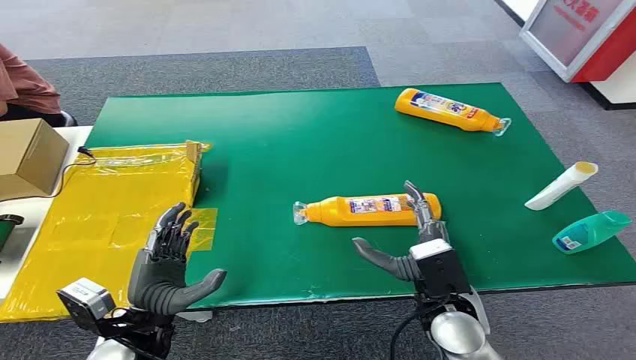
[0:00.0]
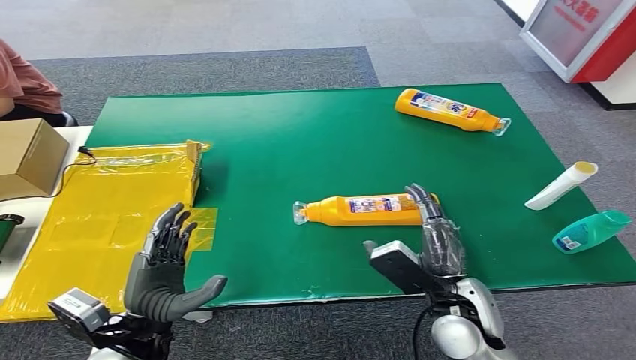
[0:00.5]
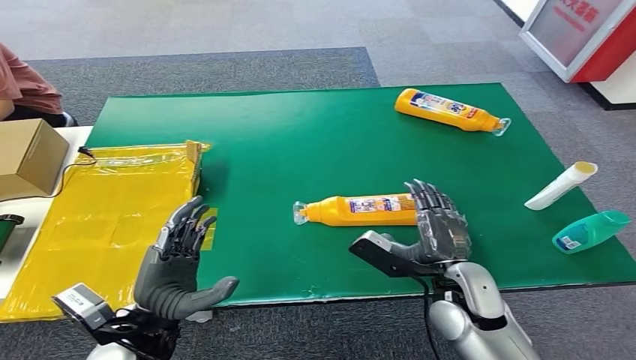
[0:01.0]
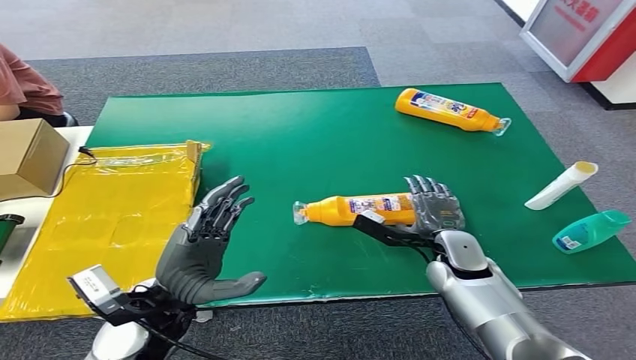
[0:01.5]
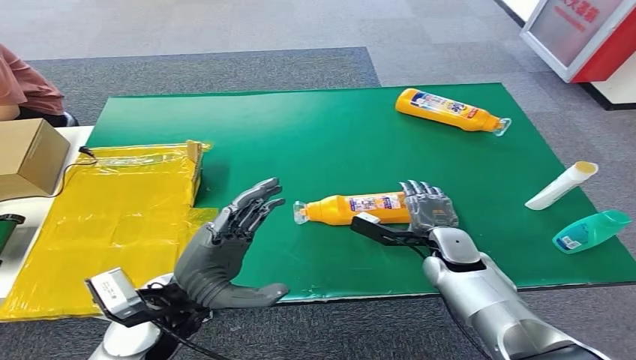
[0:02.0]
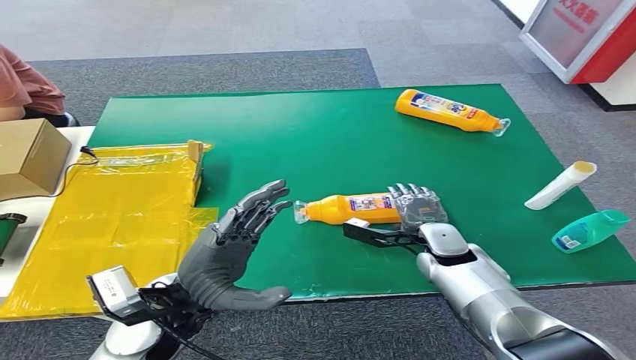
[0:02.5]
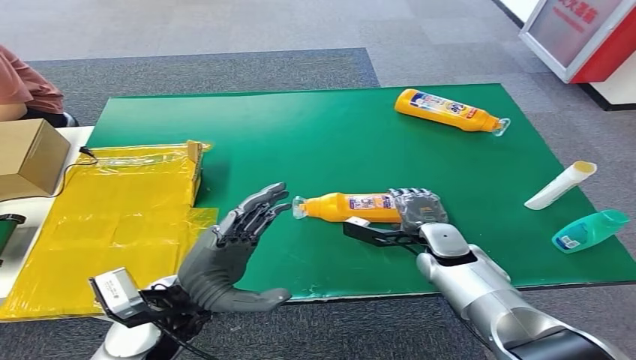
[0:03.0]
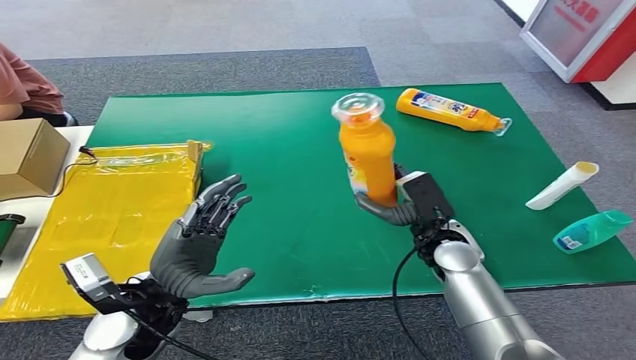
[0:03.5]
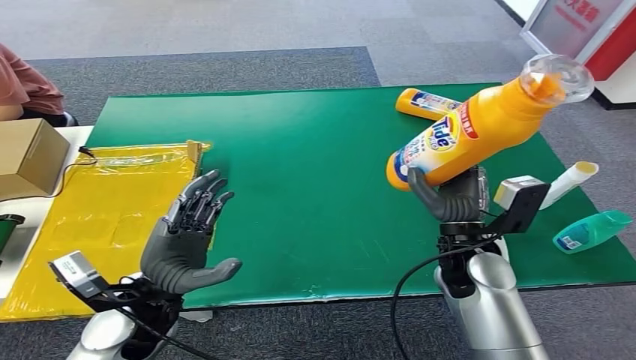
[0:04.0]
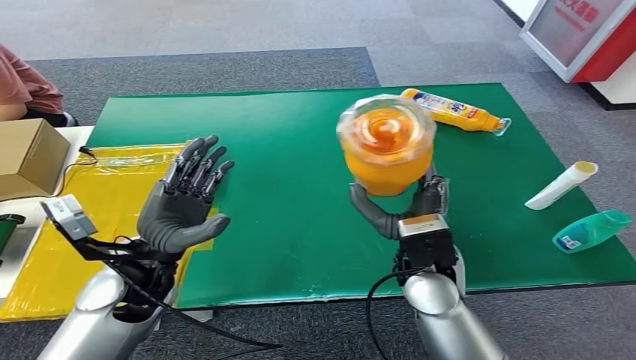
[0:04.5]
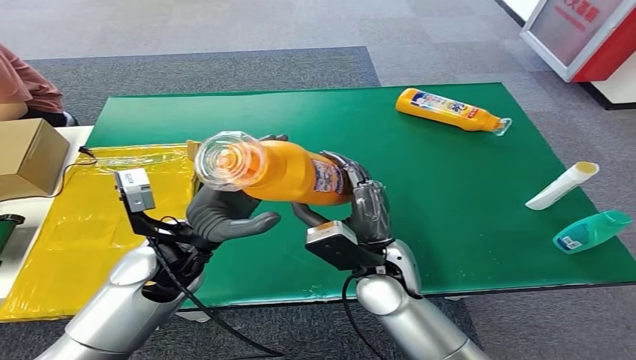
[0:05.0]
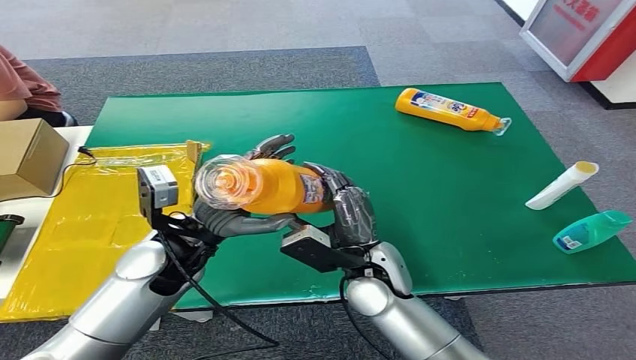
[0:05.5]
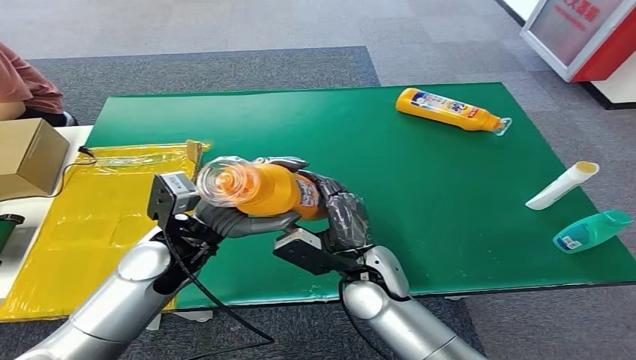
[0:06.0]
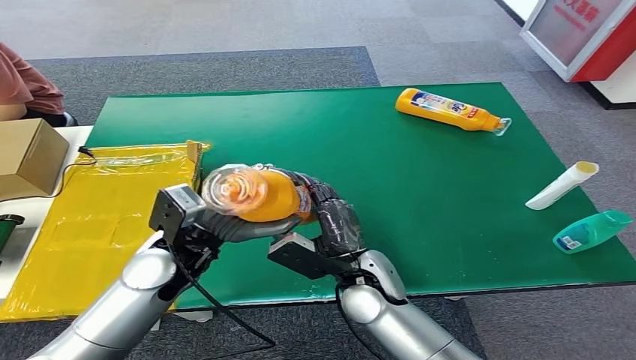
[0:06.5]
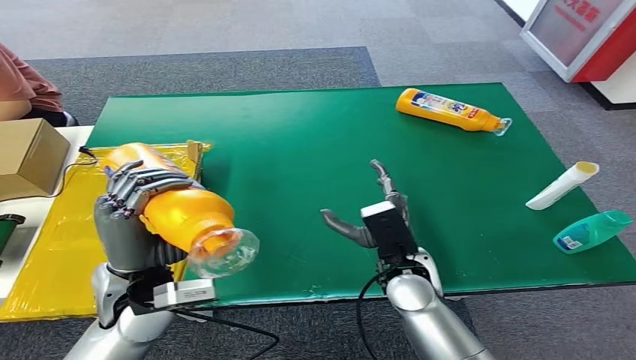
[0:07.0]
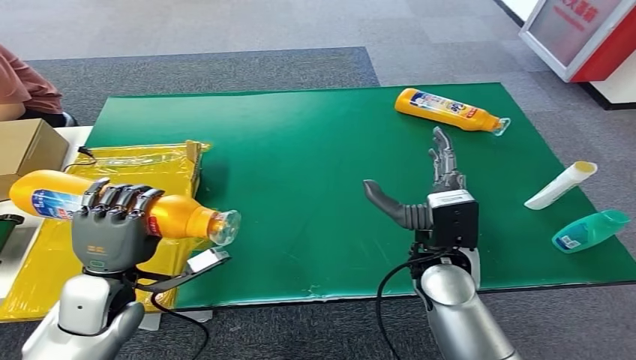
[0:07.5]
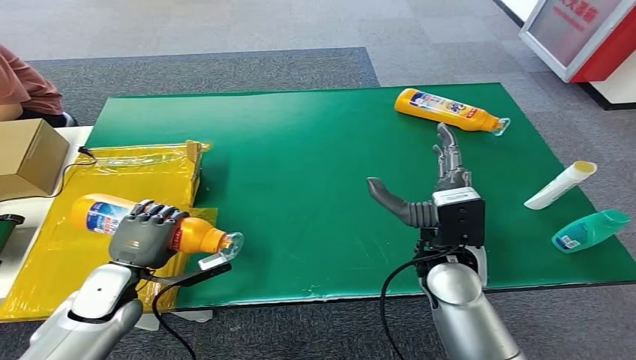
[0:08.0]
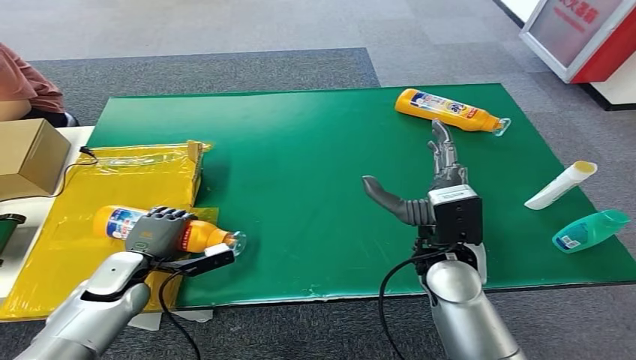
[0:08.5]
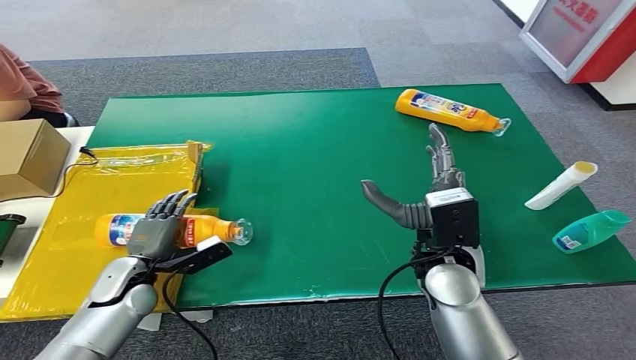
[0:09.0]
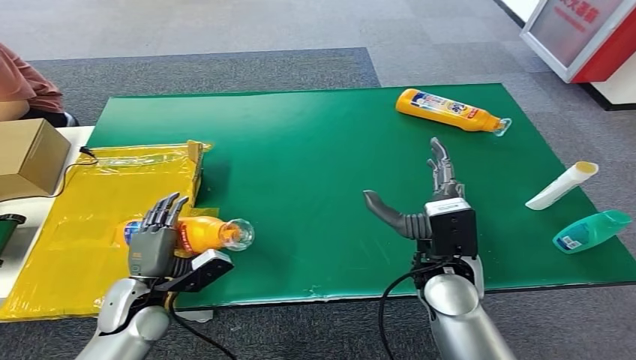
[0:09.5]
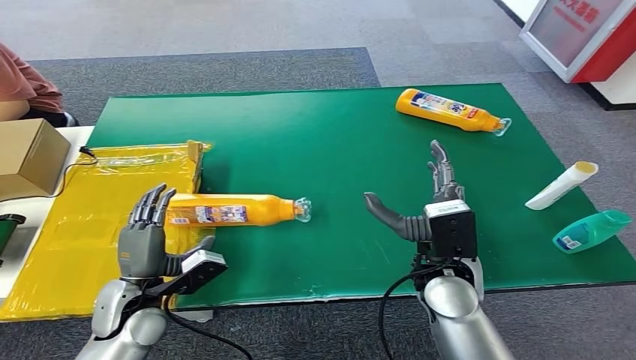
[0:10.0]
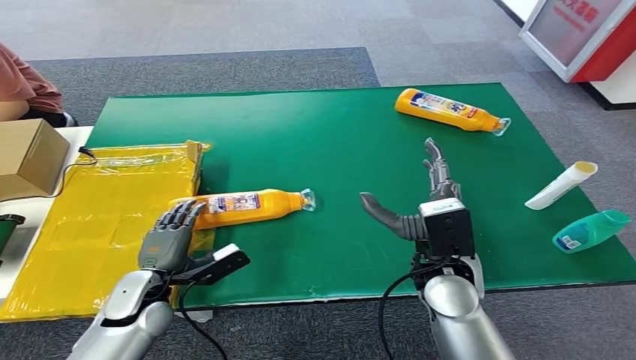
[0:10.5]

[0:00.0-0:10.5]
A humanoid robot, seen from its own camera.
Step, 0:00.0 to 0:03.5: Pick up the bottle from the table.
Step, 0:04.5 to 0:10.5: Turn the bottle to the front side.
0:08.5 to 0:10.5: The left hand heads to the right, covering roughly 5 cm.

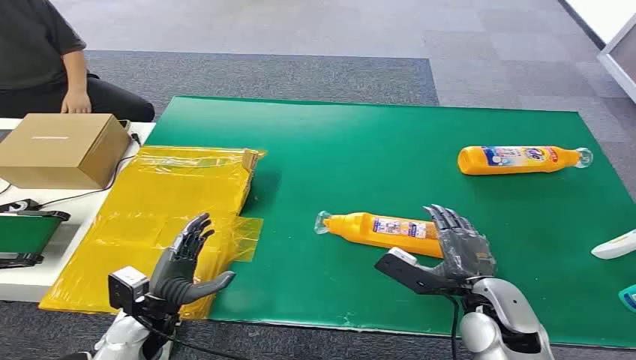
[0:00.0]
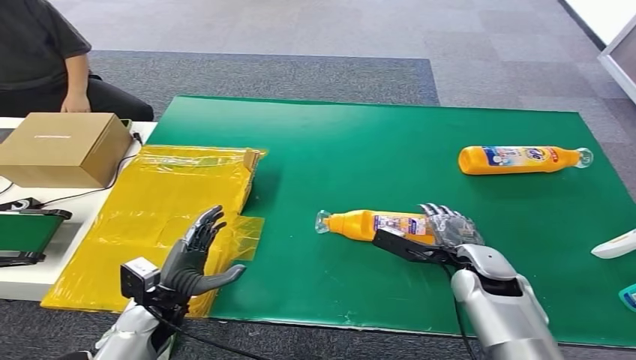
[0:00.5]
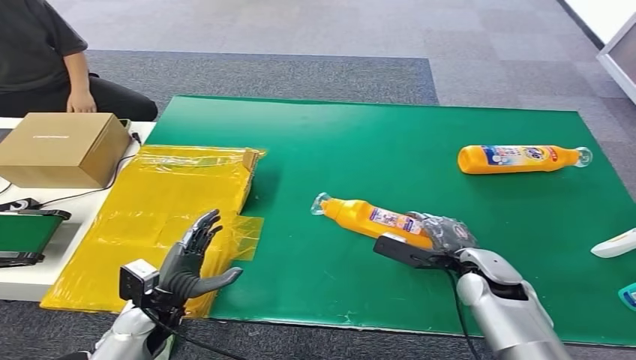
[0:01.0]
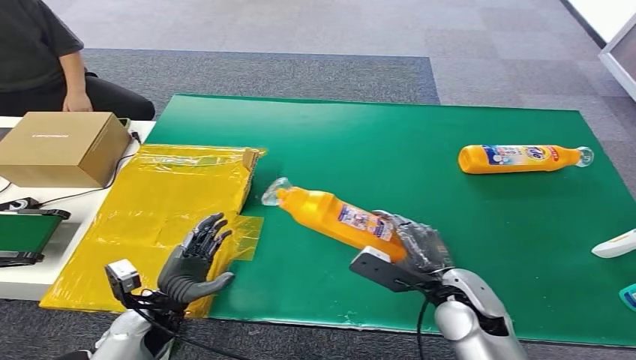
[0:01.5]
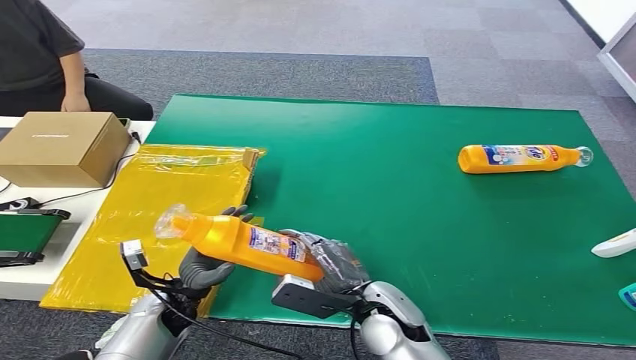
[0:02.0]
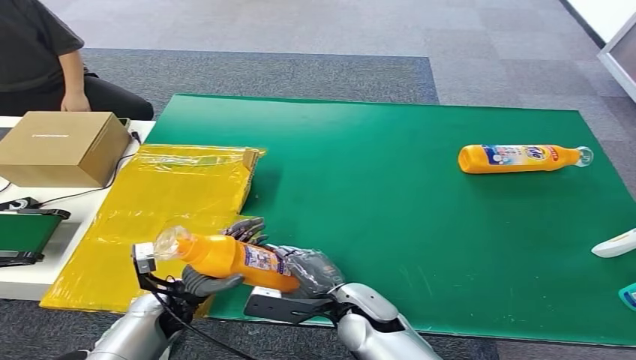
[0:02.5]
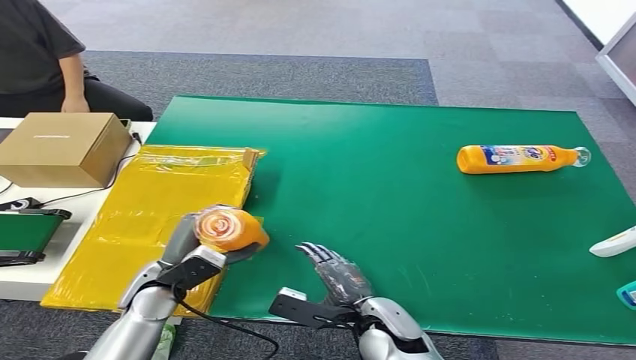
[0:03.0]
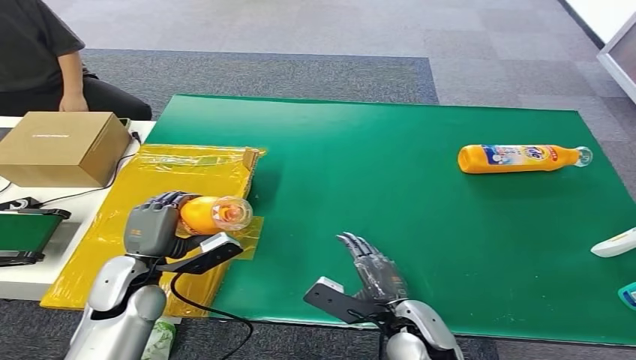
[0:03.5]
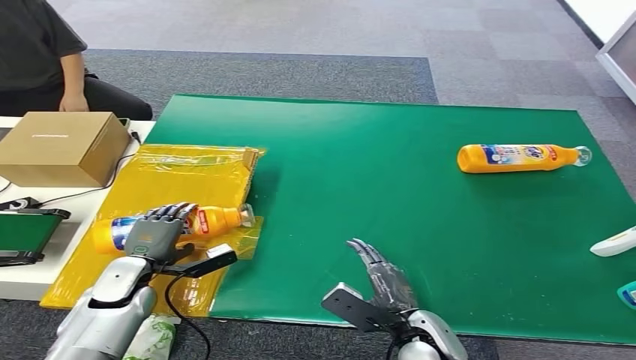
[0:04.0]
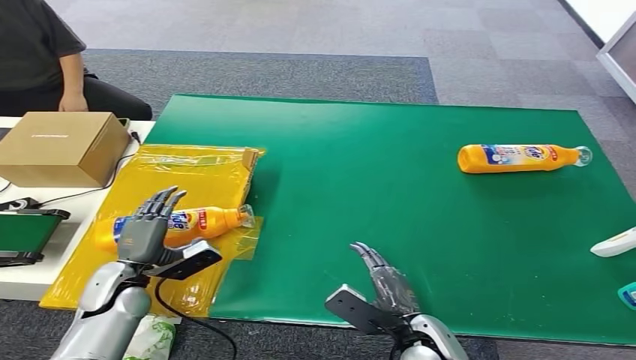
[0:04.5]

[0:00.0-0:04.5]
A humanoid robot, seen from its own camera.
Step, 0:00.0 to 0:01.0: Pick up the bottle from the table.
Step, 0:01.5 to 0:04.5: Turn the bottle to the front side.
0:02.0 to 0:04.5: The right hand heads to the right and backward, covering about 10 cm. The left hand goes roughly 10 cm to the left.
